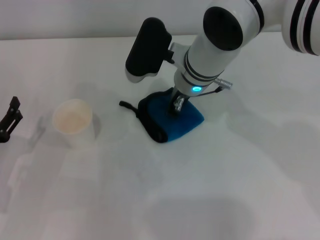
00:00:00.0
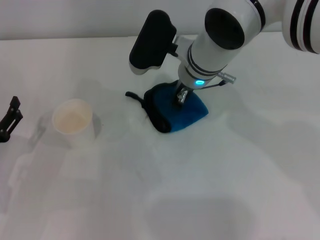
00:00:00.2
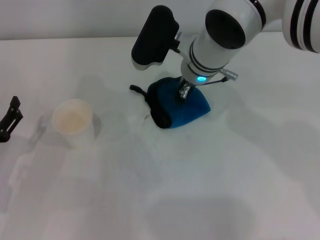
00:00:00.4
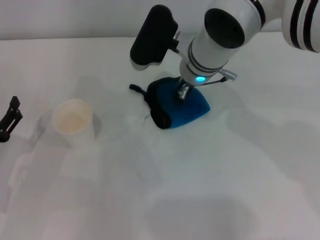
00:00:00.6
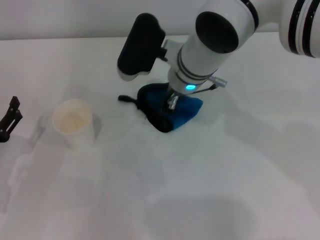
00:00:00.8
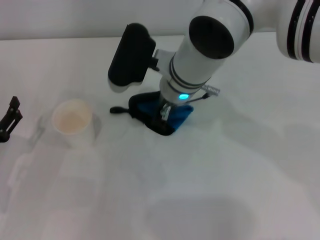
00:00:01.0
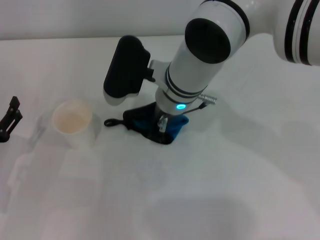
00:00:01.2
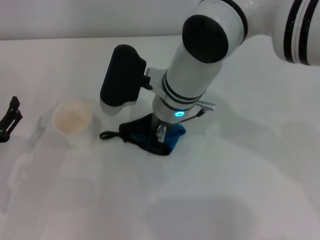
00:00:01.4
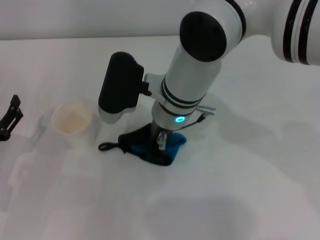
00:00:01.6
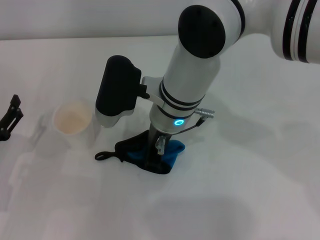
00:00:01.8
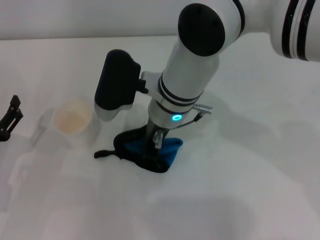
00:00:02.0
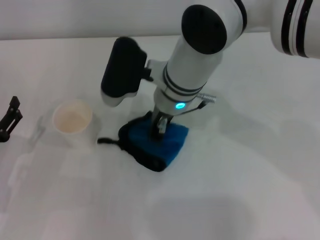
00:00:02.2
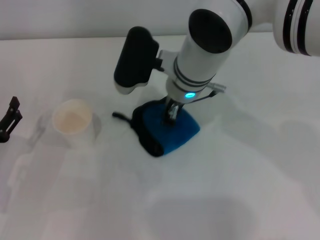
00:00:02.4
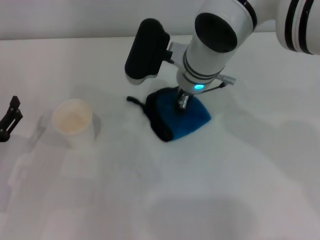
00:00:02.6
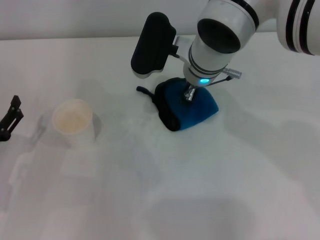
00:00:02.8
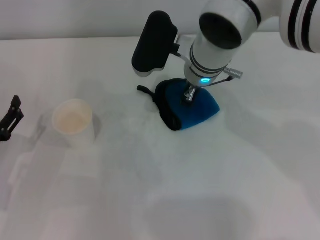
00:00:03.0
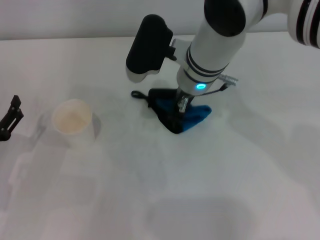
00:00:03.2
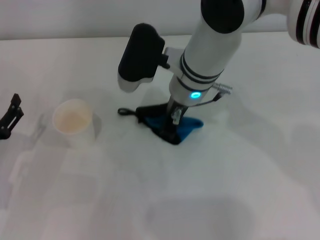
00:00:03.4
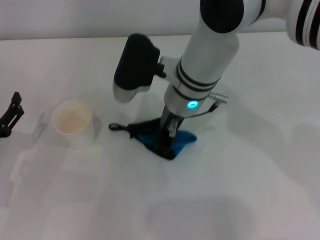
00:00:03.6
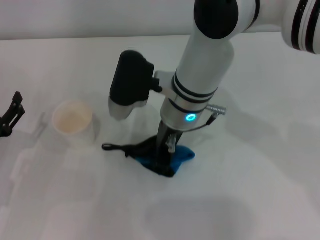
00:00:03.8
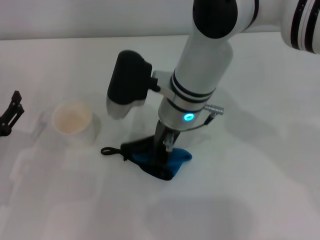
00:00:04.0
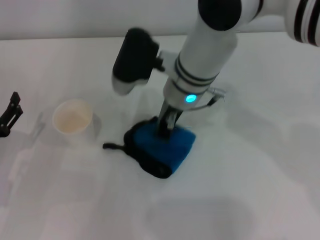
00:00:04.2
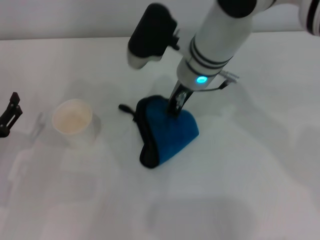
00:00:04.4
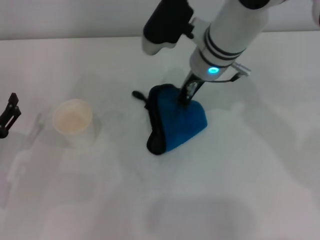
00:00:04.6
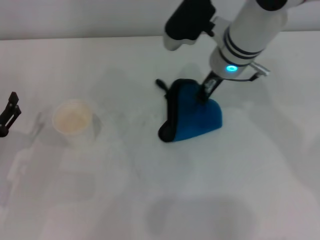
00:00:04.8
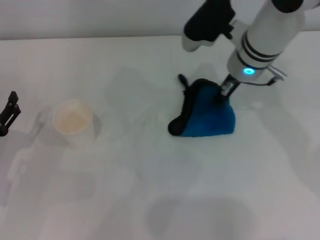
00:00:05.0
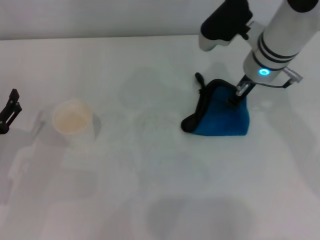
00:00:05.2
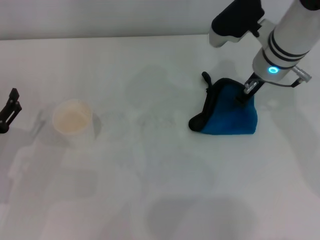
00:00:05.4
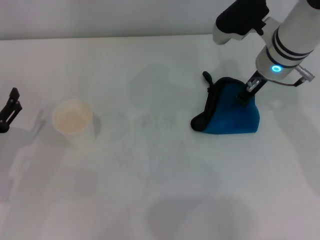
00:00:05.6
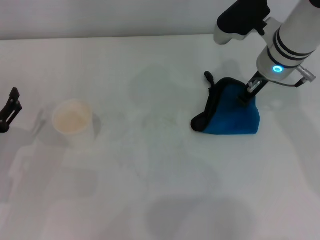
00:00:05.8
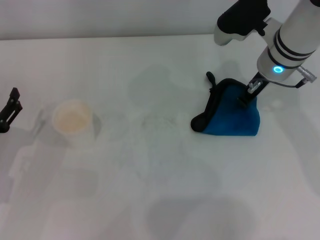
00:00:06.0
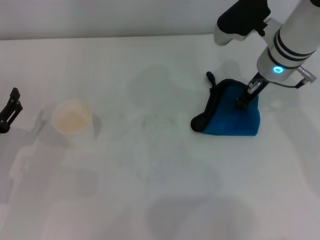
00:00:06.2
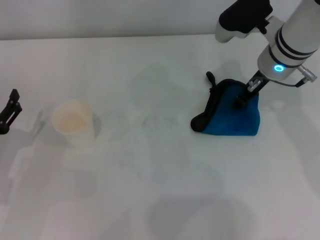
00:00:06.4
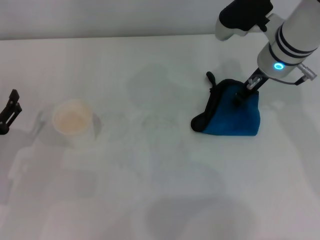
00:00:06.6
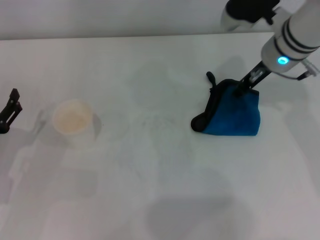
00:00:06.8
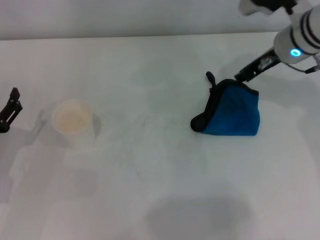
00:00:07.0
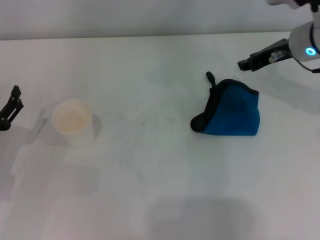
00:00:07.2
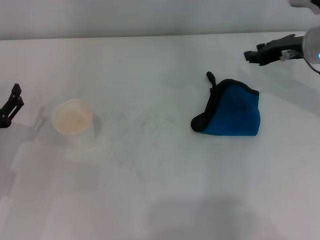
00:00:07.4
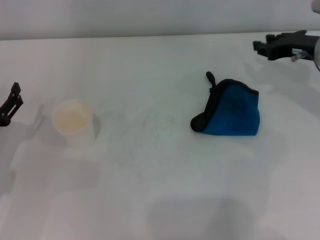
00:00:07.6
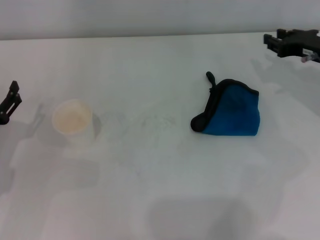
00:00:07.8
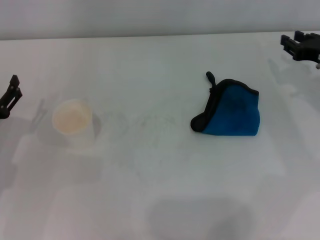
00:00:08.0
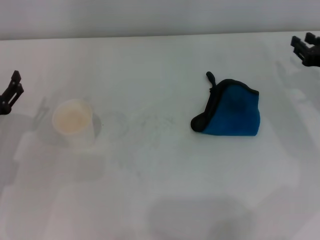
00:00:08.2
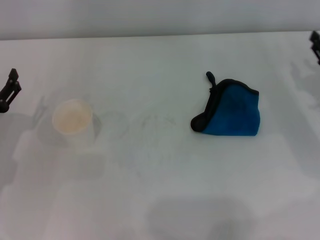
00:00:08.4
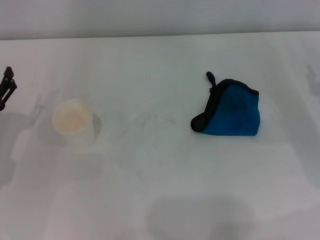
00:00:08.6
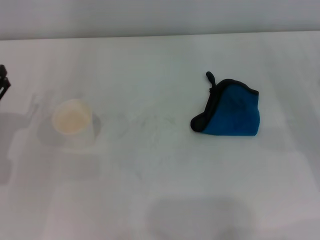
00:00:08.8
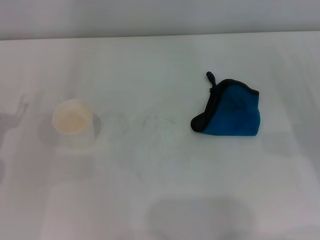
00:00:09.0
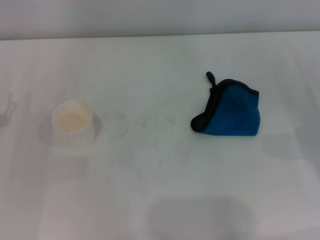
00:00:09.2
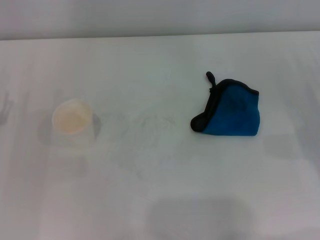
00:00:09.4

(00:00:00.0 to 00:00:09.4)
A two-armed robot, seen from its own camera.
Step, 00:00:00.0 - 00:00:05.6: Wipe the stains off the table with the right gripper.
Step, 00:00:05.8 - 00:00:06.4: Place the rag on the table with the right gripper.
00:00:00.0 - 00:00:01.6: The right gripper is displaced backward by approximately 5 cm.
00:00:01.6 - 00:00:03.2: The right gripper changes place by some 5 cm.
00:00:03.2 - 00:00:04.8: The right gripper moves to the right, approximately 5 cm.
00:00:04.8 - 00:00:06.2: The right gripper heads to the right, covering approximately 5 cm.
00:00:06.2 - 00:00:07.8: The right gripper travels to the right by about 10 cm.
00:00:07.8 - 00:00:09.4: The right gripper moves backward, downward and to the right, roughly 15 cm.

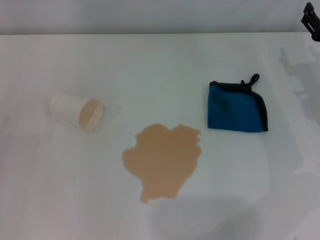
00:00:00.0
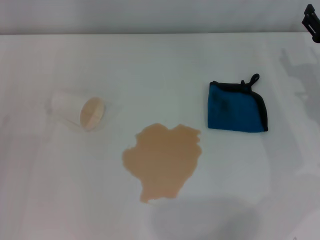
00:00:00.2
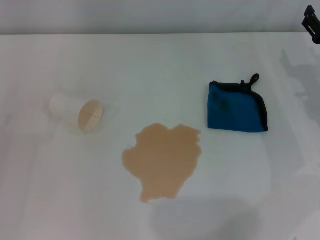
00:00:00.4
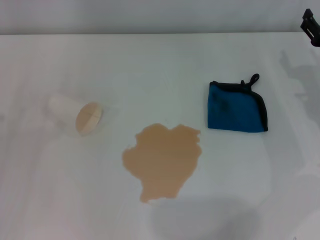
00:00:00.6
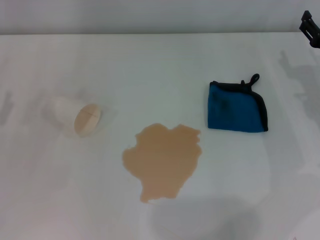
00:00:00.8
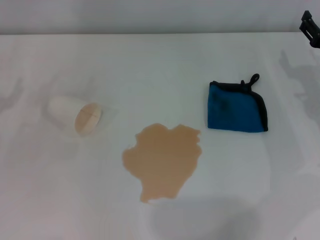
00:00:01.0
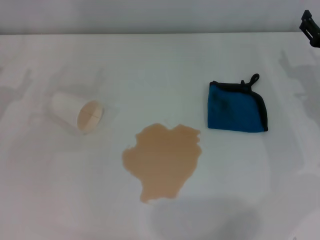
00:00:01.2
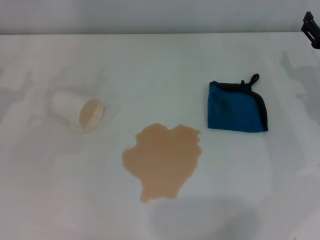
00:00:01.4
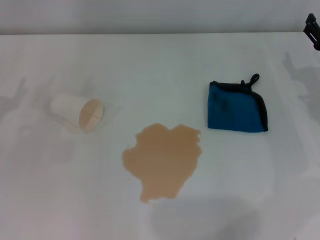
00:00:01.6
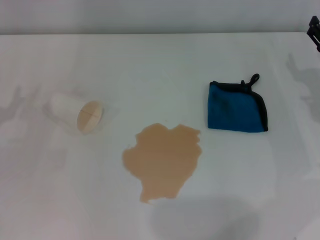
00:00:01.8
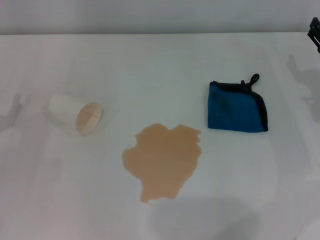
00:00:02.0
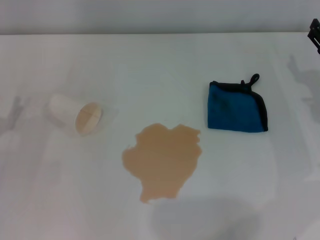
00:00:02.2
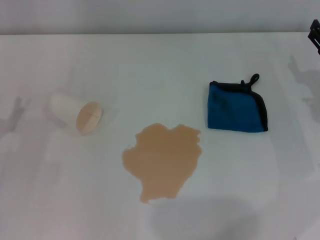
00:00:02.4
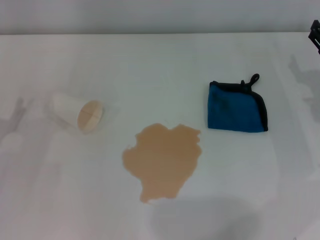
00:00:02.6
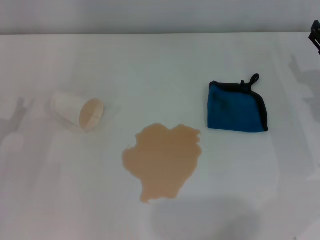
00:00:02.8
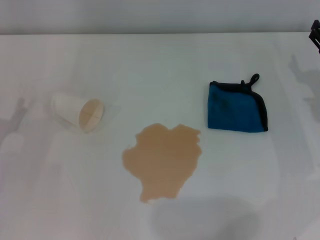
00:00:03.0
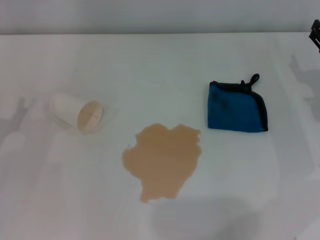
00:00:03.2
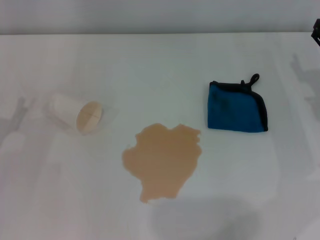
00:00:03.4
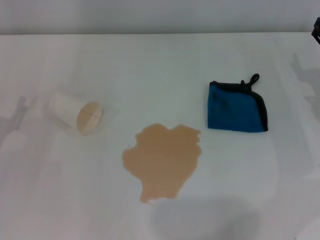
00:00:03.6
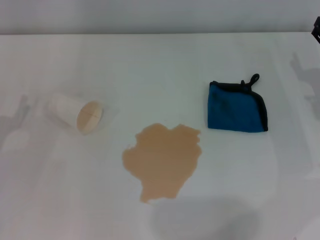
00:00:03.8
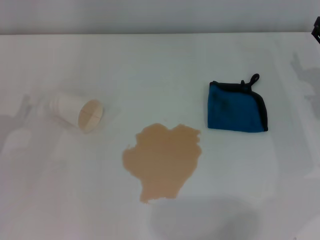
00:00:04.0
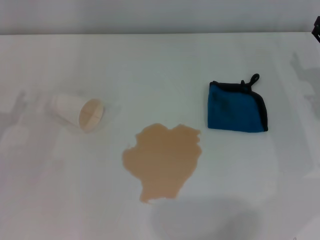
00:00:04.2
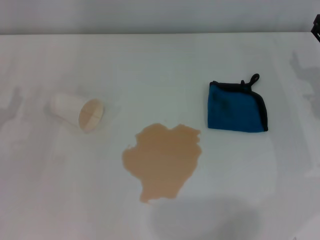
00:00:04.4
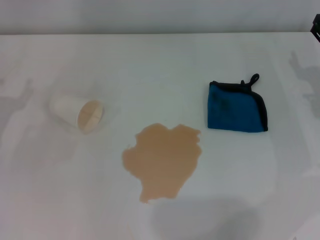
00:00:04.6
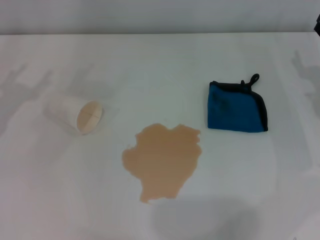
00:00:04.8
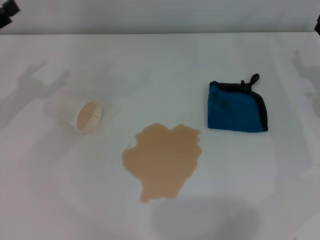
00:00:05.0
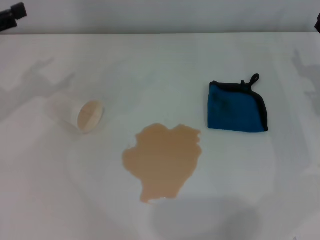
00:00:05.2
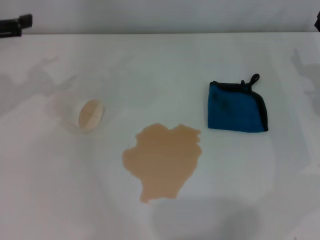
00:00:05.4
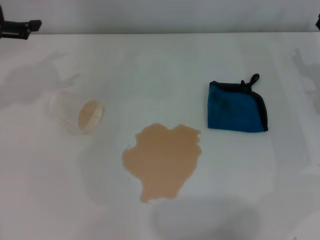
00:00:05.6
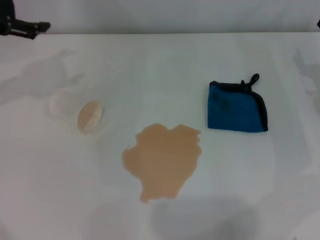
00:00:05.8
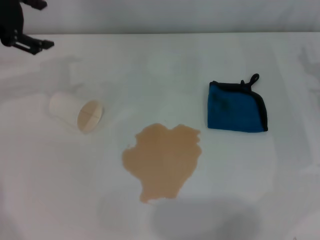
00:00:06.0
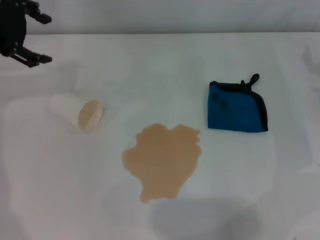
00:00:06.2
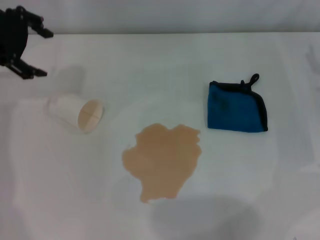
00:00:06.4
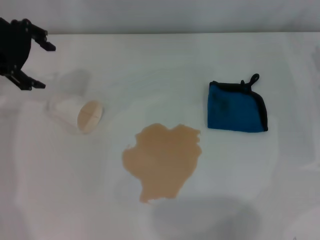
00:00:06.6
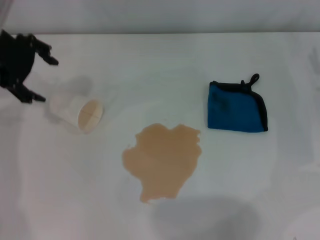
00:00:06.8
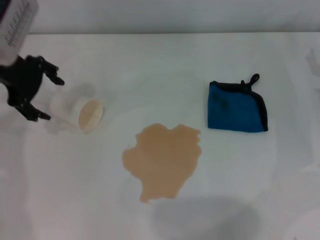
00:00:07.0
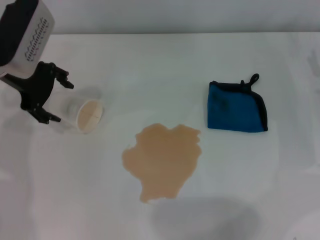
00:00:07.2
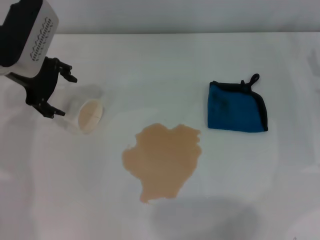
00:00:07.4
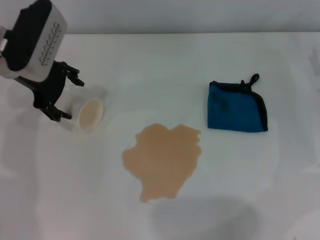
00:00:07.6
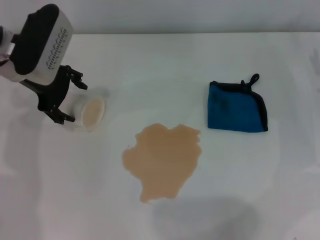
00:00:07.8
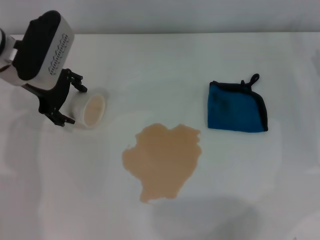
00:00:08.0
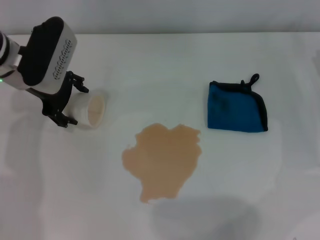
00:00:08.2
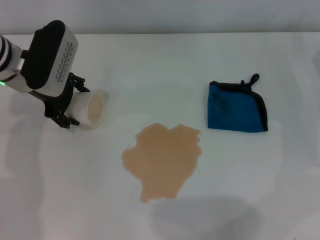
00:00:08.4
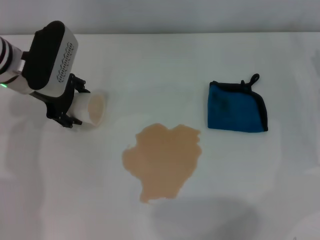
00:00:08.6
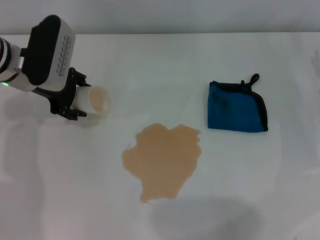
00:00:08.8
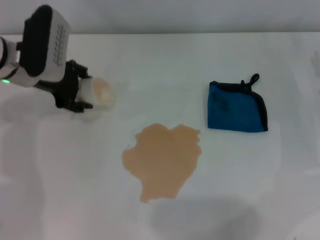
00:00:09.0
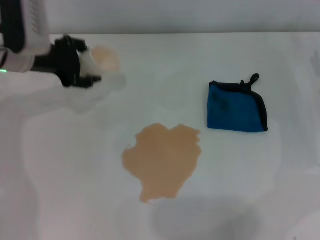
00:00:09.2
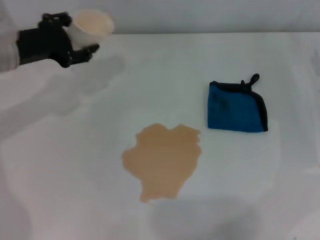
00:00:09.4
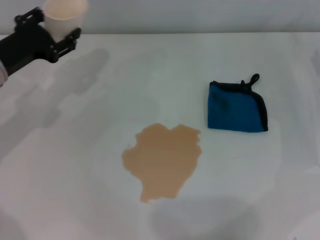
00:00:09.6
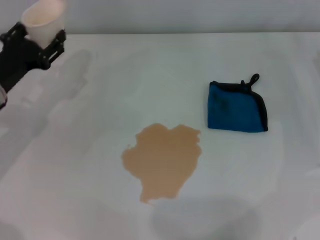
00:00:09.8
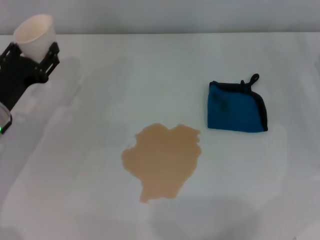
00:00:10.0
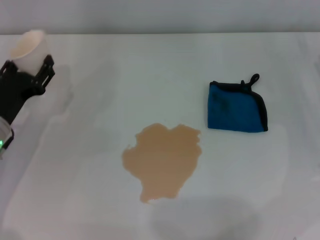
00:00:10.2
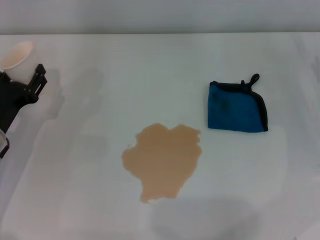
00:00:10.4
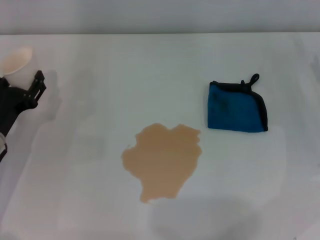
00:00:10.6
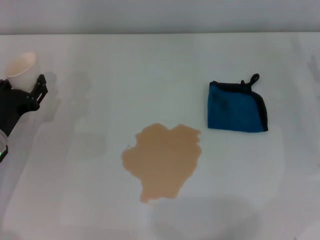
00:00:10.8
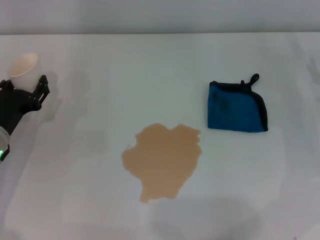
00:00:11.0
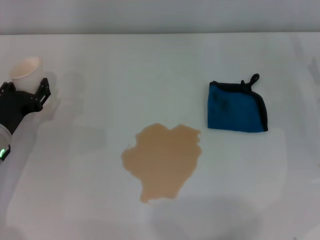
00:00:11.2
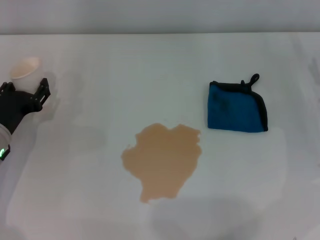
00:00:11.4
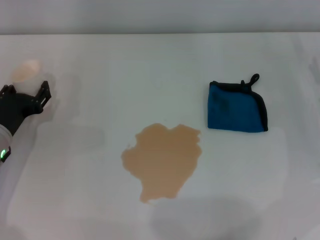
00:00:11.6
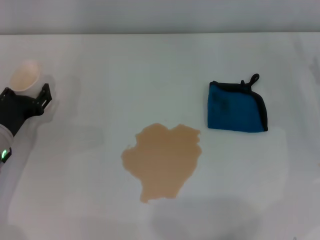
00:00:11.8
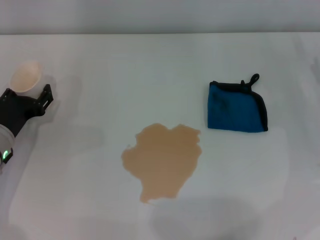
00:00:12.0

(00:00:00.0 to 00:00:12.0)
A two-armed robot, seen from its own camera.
Step, 00:00:00.0 - 00:00:08.6: Grasp the paper cup with the left gripper.
00:00:04.4 - 00:00:06.0: The left gripper moves upward and forward, roughly 25 cm.
00:00:06.0 - 00:00:07.6: The left gripper travels downward and to the right by approximately 10 cm.
00:00:07.6 - 00:00:09.0: The left gripper closes up.
00:00:09.0 - 00:00:10.4: The left gripper is displaced backward, downward and to the left by some 15 cm.
00:00:10.4 - 00:00:12.0: The grippers make only small movements.

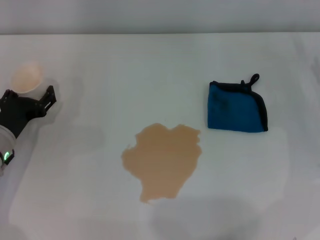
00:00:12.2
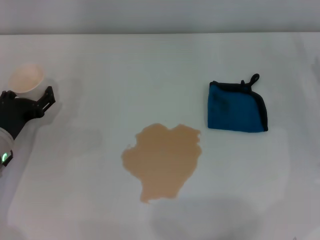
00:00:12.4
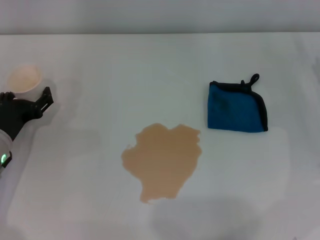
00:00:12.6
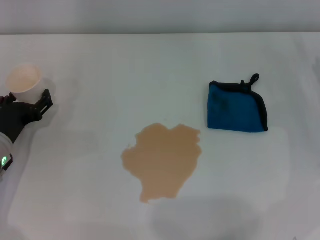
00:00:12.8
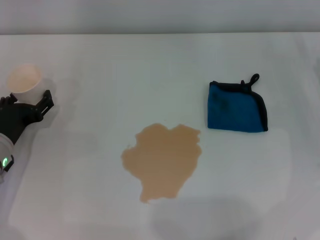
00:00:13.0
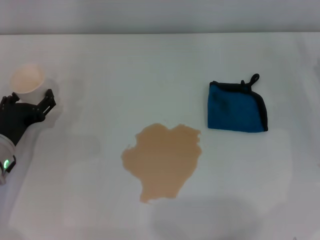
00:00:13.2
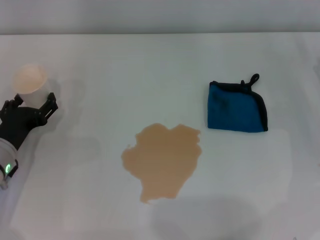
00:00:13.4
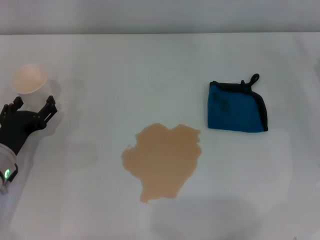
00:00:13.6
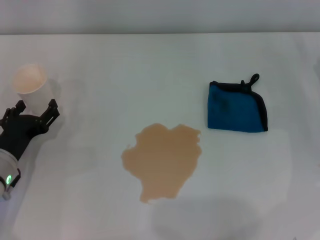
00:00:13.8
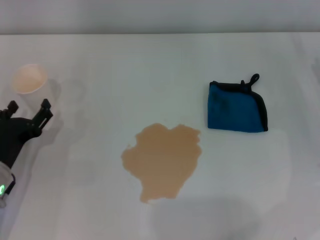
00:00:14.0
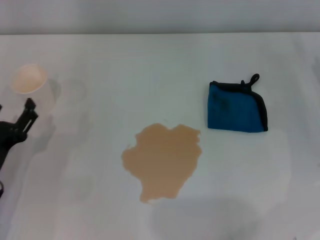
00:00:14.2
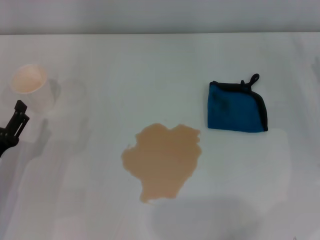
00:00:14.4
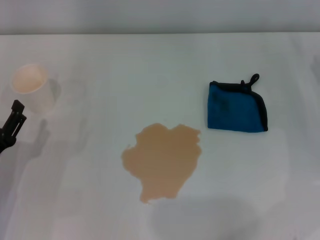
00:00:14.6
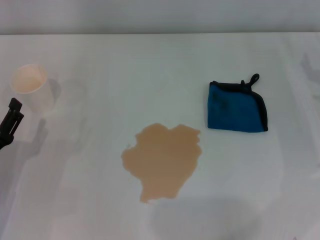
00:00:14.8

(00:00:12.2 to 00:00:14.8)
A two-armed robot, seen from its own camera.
00:00:12.2 - 00:00:13.4: The left gripper opens up.
00:00:13.4 - 00:00:14.8: The left gripper shifts approximately 10 cm backward.
